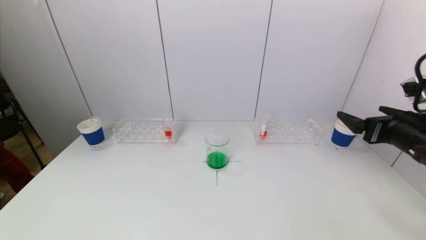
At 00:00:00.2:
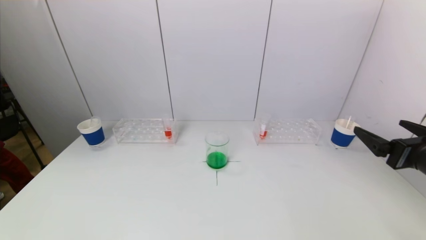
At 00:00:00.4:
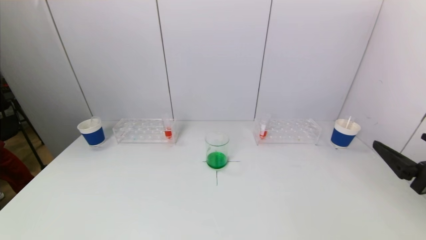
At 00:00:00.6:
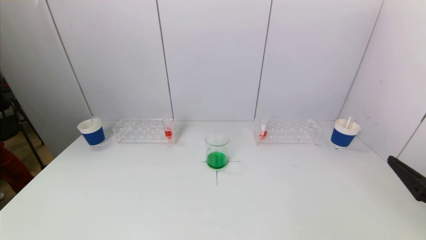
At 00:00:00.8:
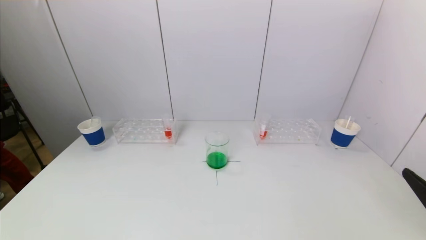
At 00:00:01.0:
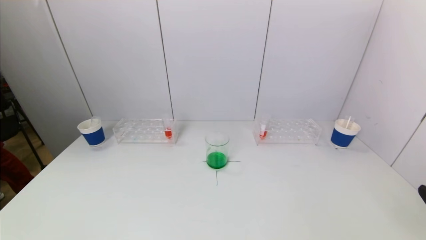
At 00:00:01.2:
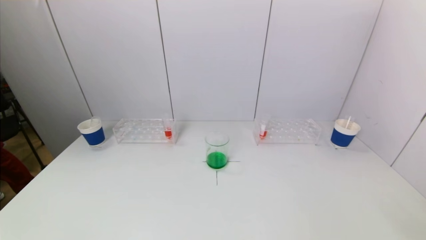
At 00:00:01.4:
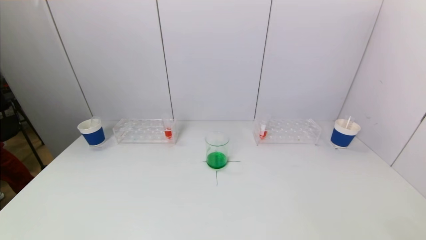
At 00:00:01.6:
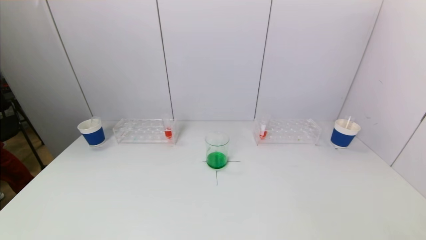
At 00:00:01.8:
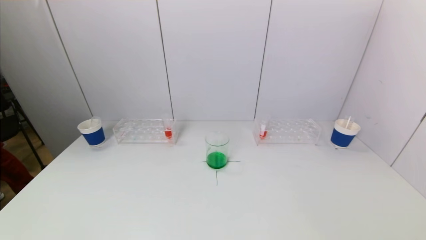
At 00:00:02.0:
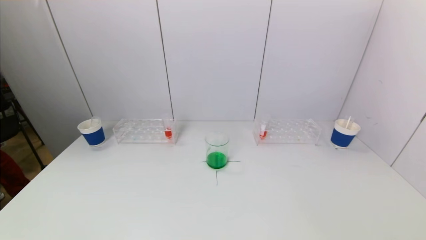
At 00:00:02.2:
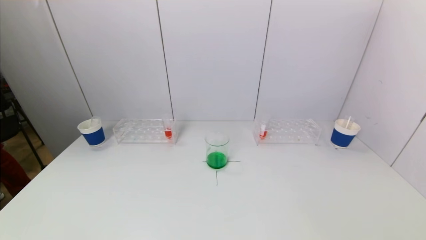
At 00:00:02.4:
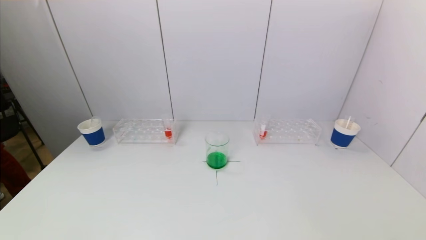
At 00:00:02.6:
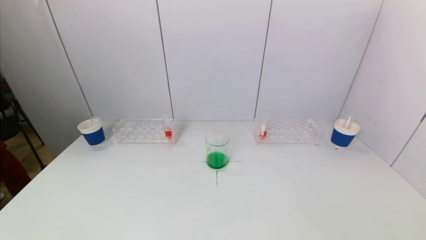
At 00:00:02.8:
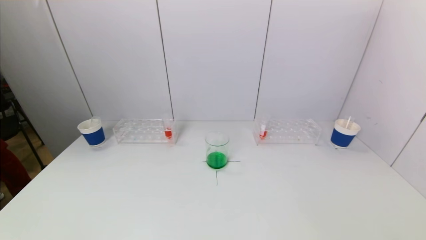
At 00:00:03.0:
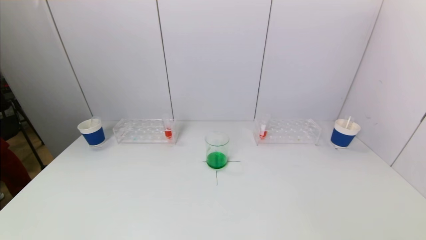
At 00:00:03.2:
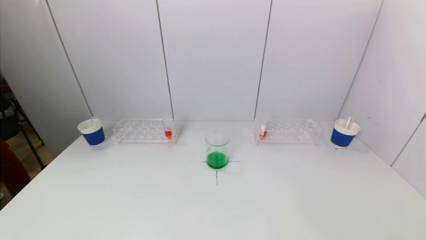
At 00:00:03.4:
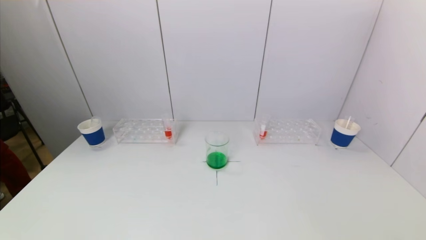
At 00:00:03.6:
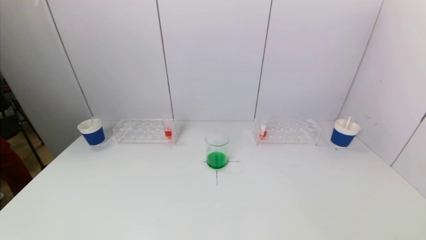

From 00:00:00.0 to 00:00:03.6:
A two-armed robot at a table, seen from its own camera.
Task of the whole recording: pick up a test tube with pigment on left test tube rack and a test tube with pigment on right test tube rack by grippers and pour them into the beaker.
From 00:00:00.0 to 00:00:01.8: The right gripper moves backward and downward, about 25 cm.
From 00:00:01.8 to 00:00:03.6: Neither gripper changes place.
